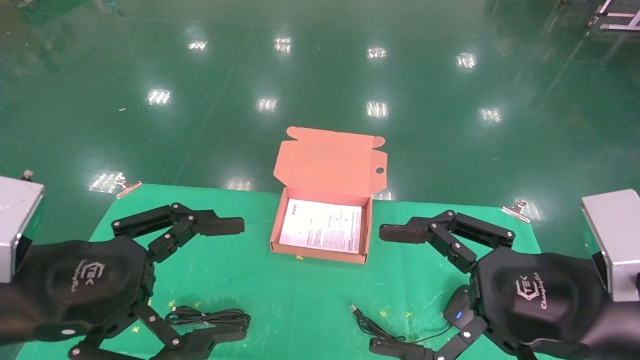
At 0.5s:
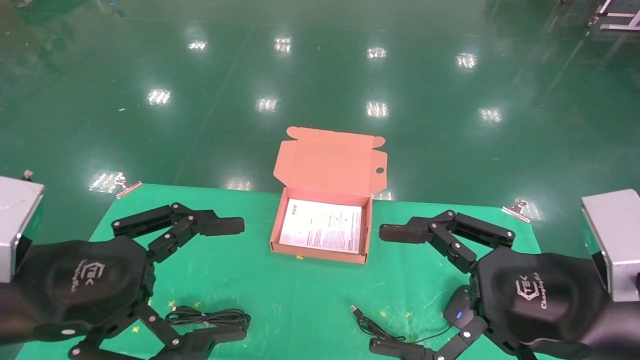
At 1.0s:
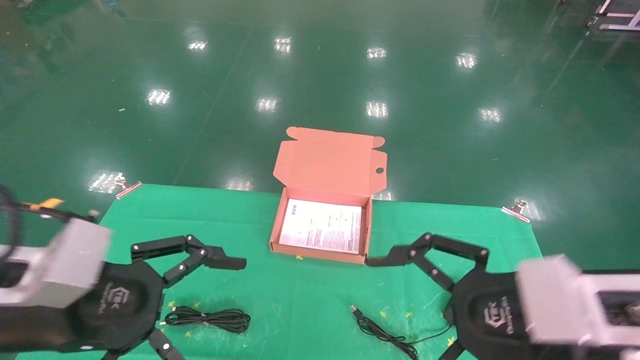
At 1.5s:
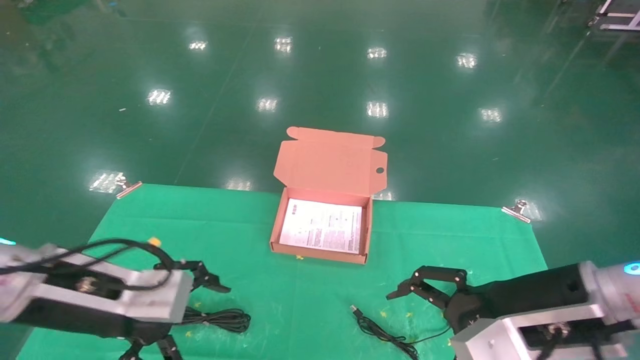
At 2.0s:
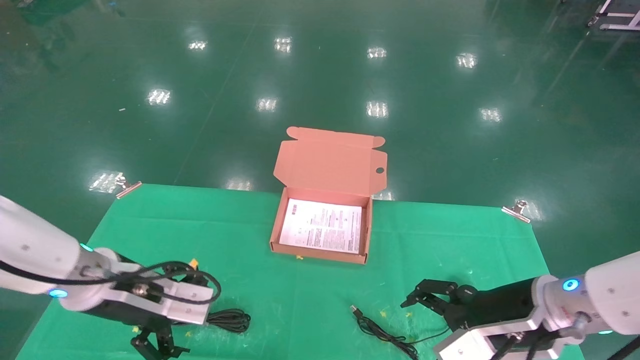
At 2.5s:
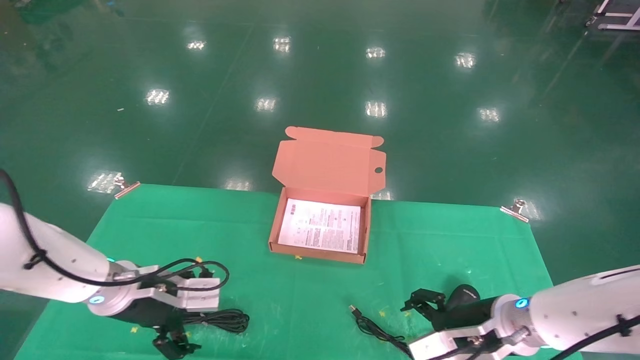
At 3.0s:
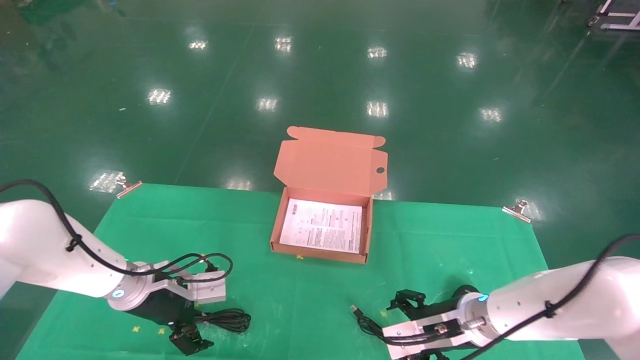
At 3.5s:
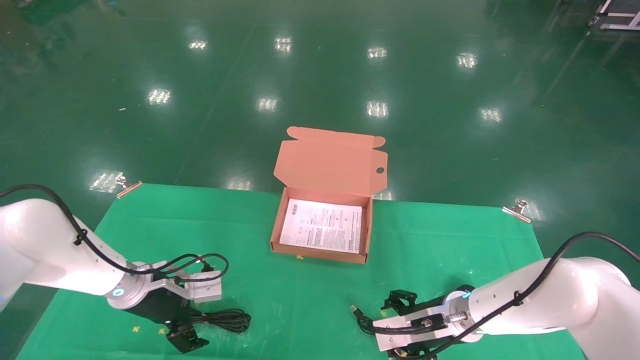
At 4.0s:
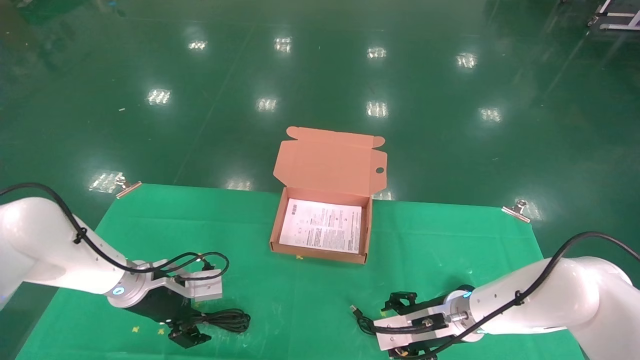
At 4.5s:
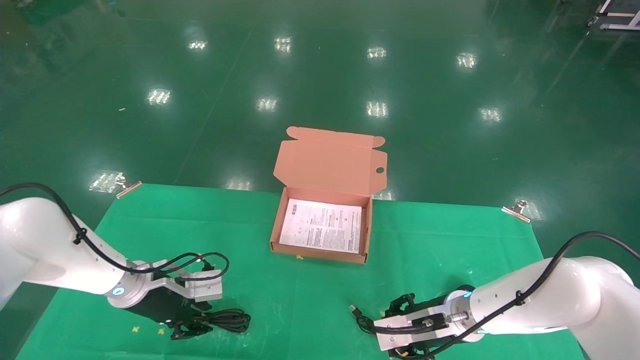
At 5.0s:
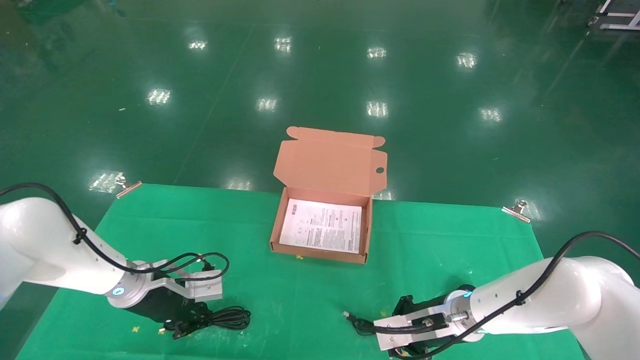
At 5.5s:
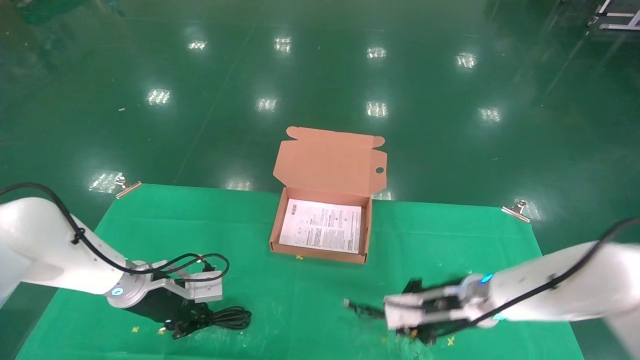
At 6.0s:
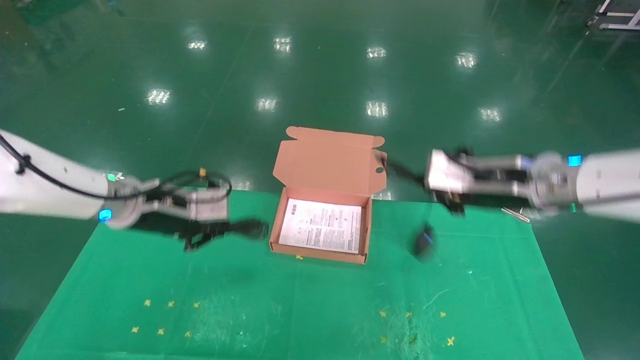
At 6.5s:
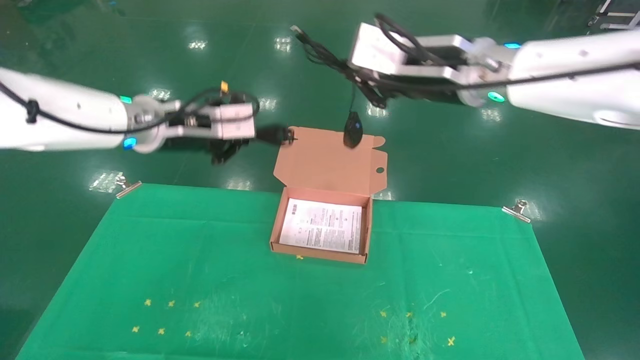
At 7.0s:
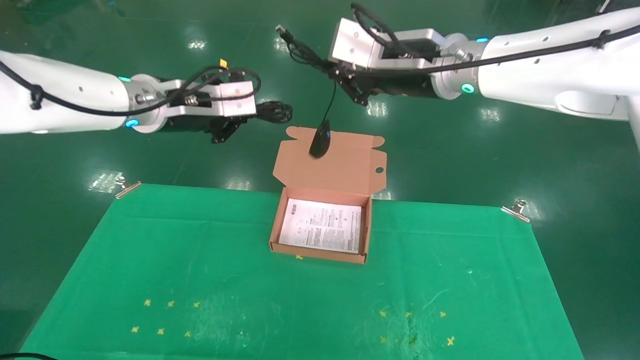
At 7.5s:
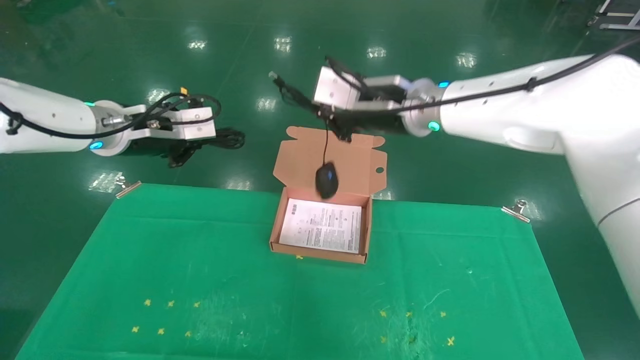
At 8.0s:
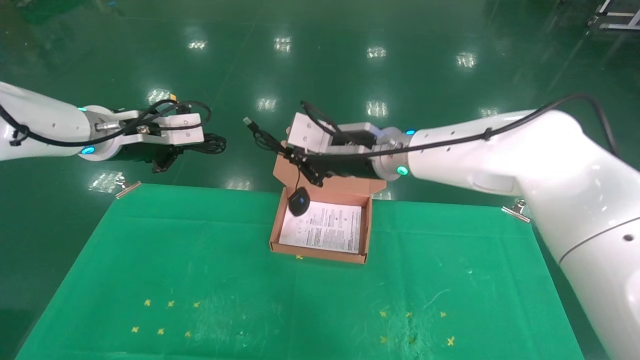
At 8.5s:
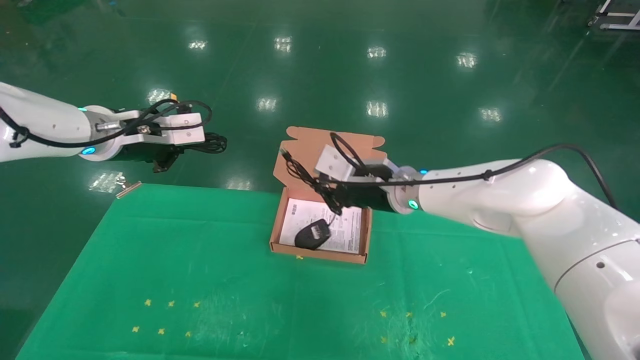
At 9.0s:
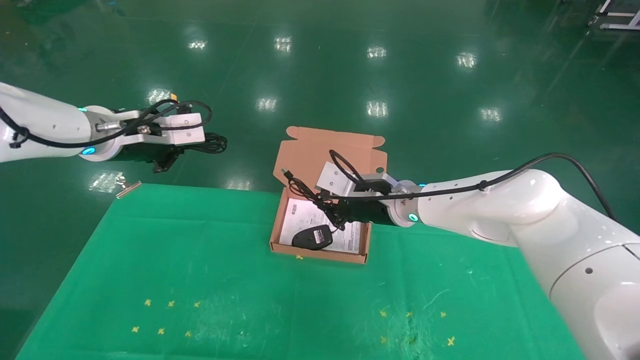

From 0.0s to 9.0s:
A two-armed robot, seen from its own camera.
Task of the whole recording: grasp data cable left put into box grasp mouse right put into box.
Step, from 1.0s to 6.0s: Grab and pick up both the mouse and power cord from the accessory packaging area at the same time.
From 0.0s to 2.0s: The two grippers go about 15 cm forward and downward.
From 2.0s to 4.5s: Both grippers move forward and downward, roughly 15 cm. The right gripper closes. The left gripper closes up.
From 4.5s to 7.0s: Both grippers move upward, roughly 30 cm. The right gripper closes up; the left gripper closes up.
From 7.0s to 9.0s: The left gripper moves to the left, roughly 5 cm. The right gripper moves downward, roughly 20 cm.

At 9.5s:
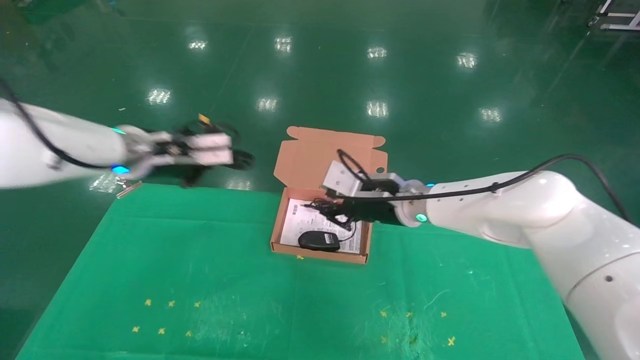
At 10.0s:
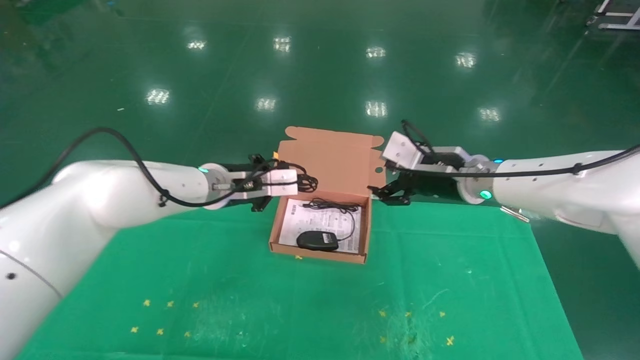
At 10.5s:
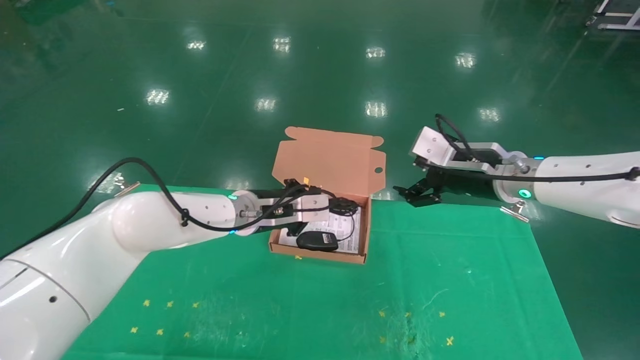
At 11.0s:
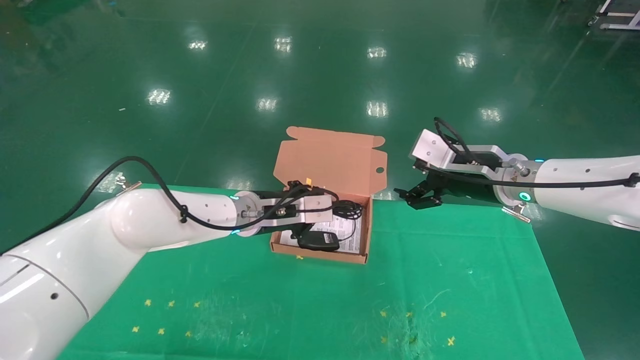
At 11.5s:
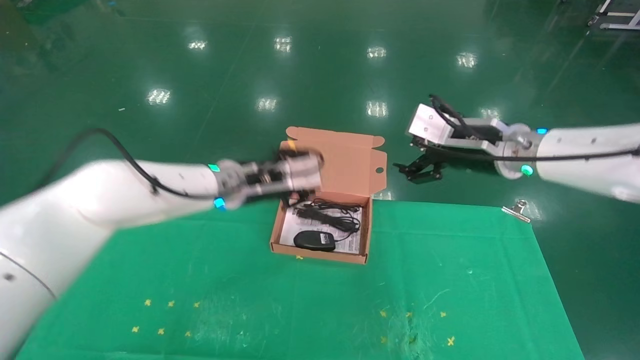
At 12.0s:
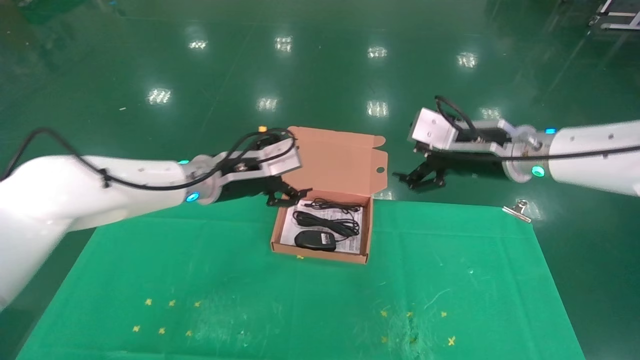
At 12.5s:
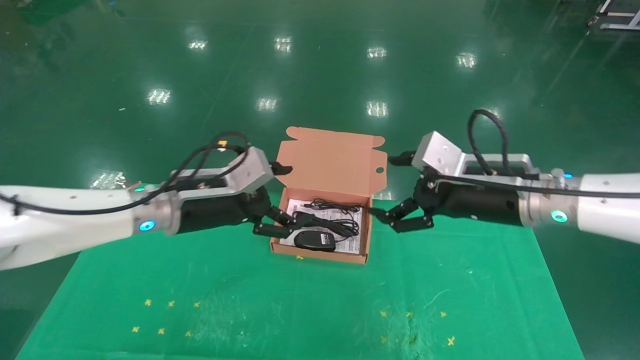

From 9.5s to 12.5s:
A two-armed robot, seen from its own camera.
Task of the whole recording: grasp data cable left put into box grasp mouse right put into box.
Step, from 9.5s to 11.5s: Place the mouse and power cord into the box.
From 9.5s to 11.0s: The right gripper shifts about 10 cm to the right, and opens up. Meanwhile the left gripper heads to the right and downward, covering about 15 cm.
From 11.0s to 12.5s: The right gripper travels backward by roughly 5 cm; the left gripper travels to the left and backward by about 10 cm, and opens up.
